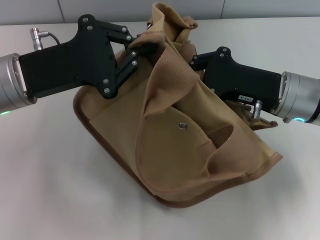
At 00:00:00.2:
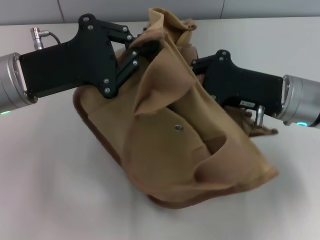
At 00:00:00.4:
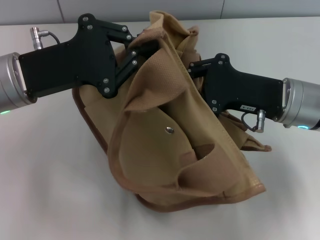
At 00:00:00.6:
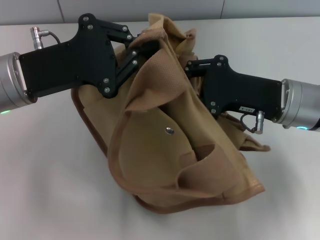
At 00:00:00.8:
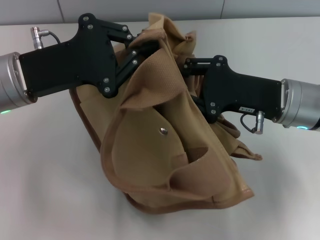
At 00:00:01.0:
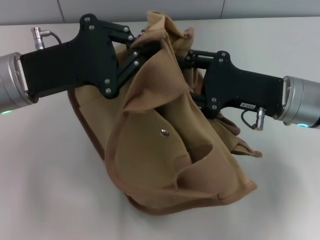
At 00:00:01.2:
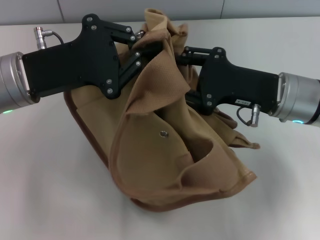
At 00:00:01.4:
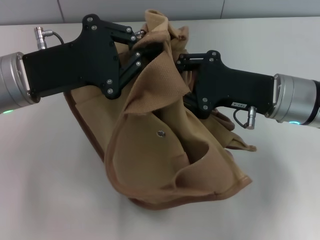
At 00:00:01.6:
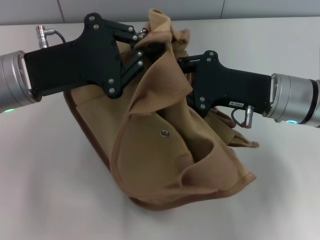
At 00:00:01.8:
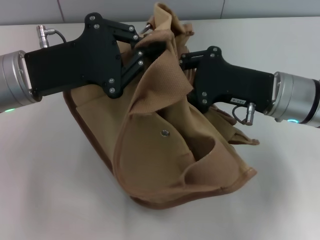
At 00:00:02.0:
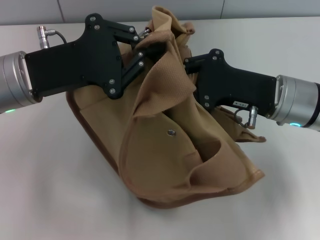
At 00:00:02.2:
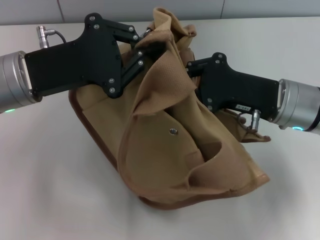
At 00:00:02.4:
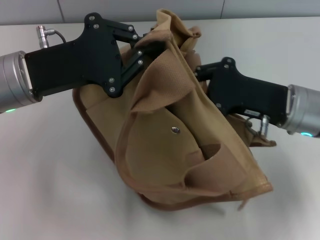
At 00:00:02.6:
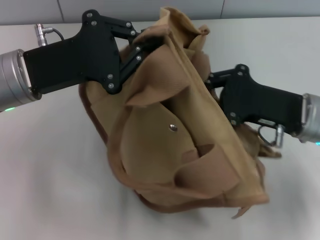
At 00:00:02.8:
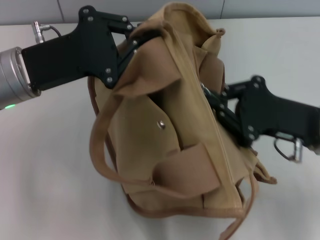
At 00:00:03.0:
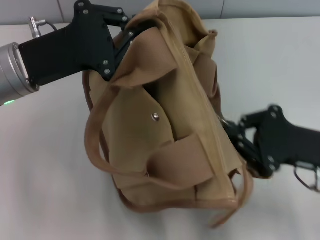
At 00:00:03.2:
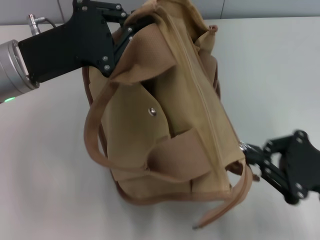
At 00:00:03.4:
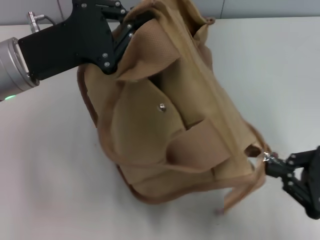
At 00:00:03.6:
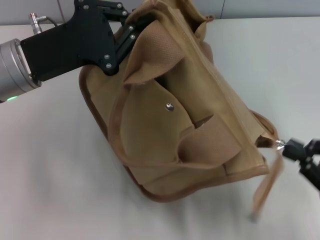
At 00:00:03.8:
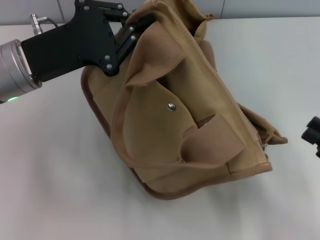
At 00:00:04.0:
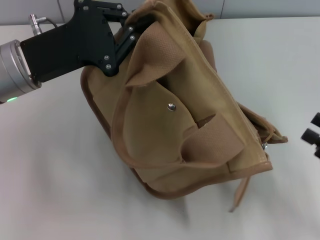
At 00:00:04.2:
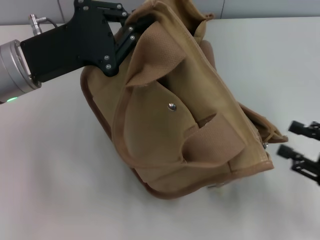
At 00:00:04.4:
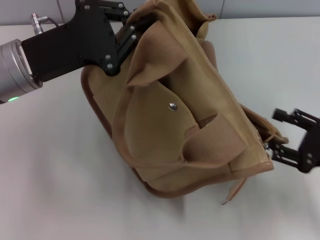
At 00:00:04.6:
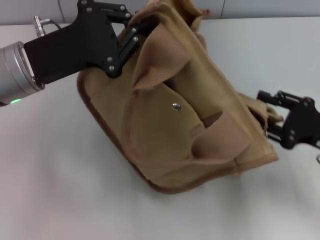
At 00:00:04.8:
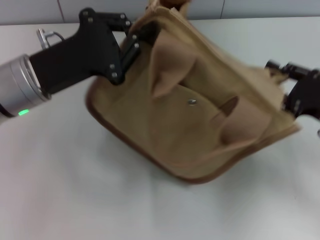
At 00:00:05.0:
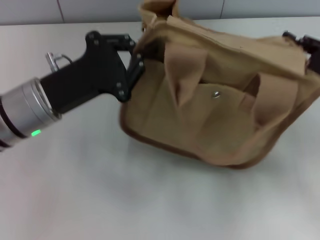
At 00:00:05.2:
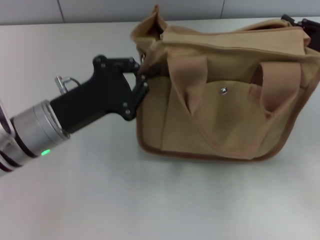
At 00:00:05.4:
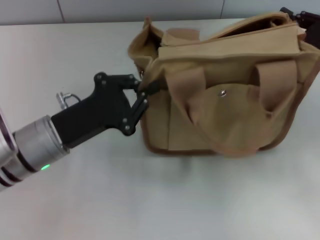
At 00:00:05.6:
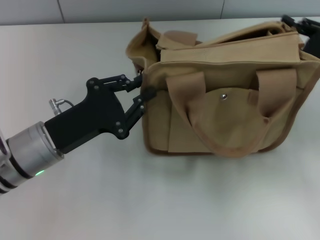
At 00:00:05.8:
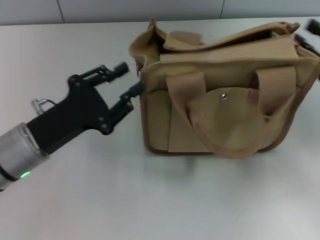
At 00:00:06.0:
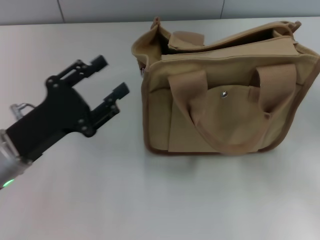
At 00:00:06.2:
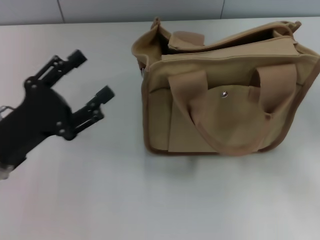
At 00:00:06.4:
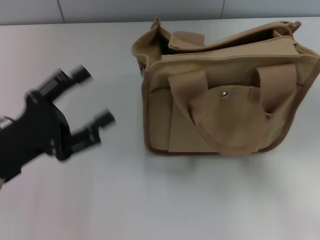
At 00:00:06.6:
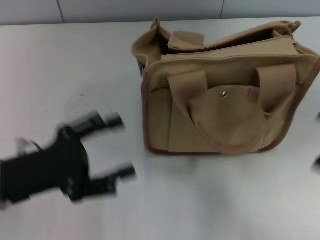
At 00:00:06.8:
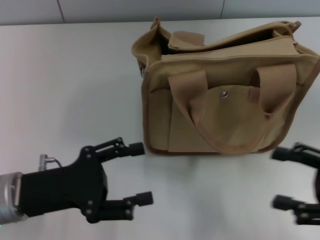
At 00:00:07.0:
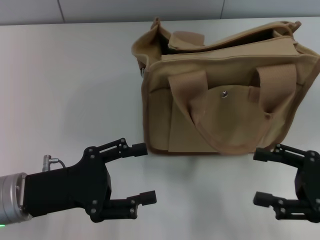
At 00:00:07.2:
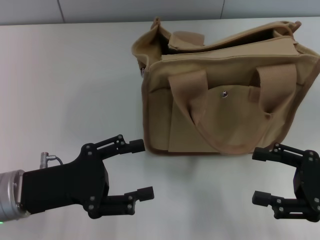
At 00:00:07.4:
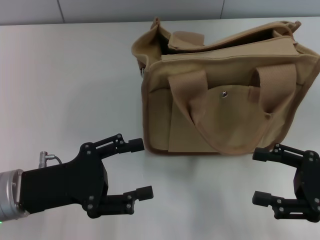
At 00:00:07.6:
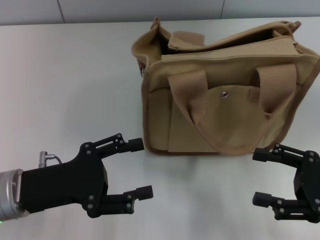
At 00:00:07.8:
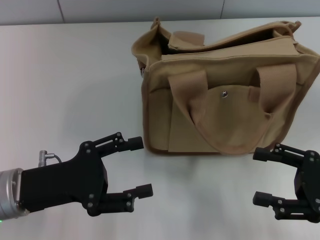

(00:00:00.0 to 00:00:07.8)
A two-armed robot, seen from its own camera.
Step, 00:00:00.0 - 00:00:03.6: Pull open the zipper with your right hand.
Step, 00:00:03.8 - 00:00:05.6: Grab the bag with your left hand.
00:00:01.6 - 00:00:03.2: The right gripper goes roughly 15 cm backward and to the right.
00:00:03.2 - 00:00:04.6: The right gripper opens up.
00:00:04.6 - 00:00:06.2: The left gripper heads backward and downward, covering approximately 10 cm, and opens up; the right gripper is displaced to the right by roughly 5 cm, moves some 5 cm forward and comes back, and closes, then reopens.
00:00:06.2 - 00:00:07.8: The right gripper heads to the left, covering about 5 cm.

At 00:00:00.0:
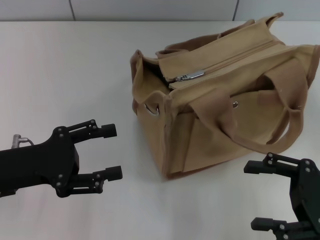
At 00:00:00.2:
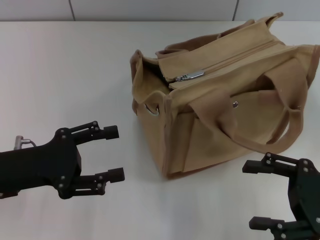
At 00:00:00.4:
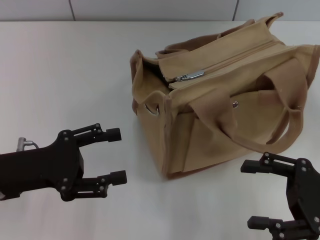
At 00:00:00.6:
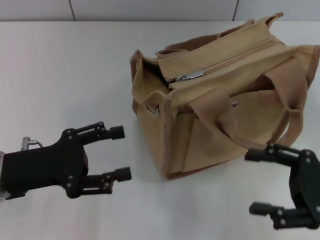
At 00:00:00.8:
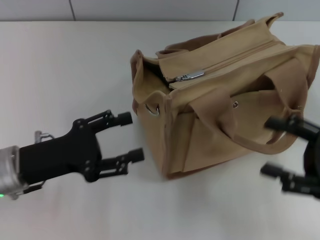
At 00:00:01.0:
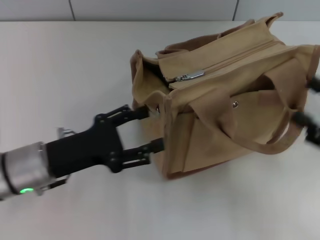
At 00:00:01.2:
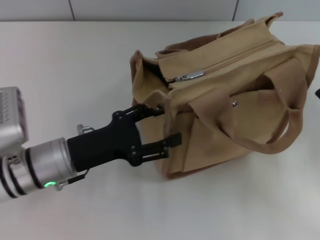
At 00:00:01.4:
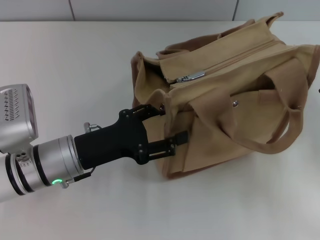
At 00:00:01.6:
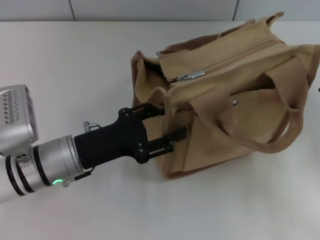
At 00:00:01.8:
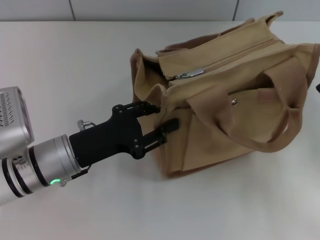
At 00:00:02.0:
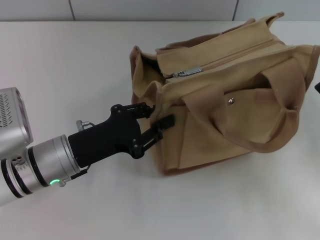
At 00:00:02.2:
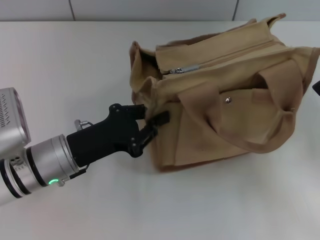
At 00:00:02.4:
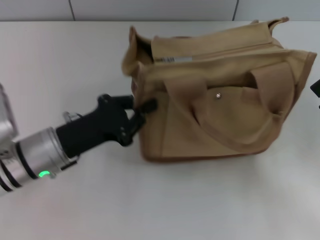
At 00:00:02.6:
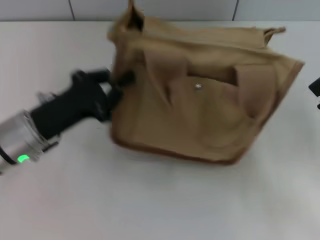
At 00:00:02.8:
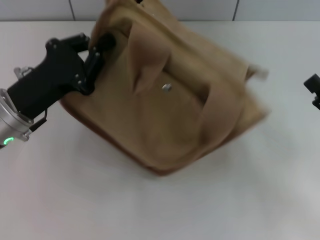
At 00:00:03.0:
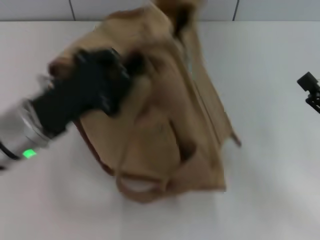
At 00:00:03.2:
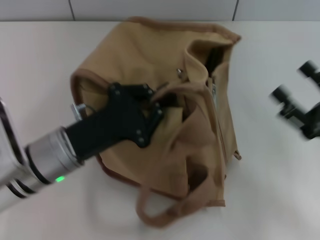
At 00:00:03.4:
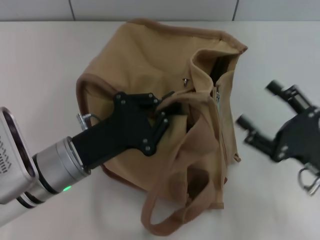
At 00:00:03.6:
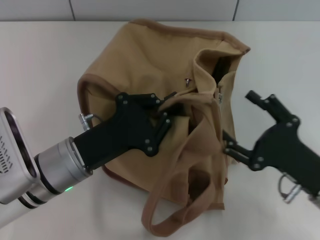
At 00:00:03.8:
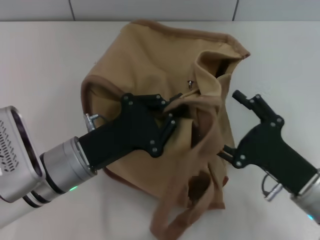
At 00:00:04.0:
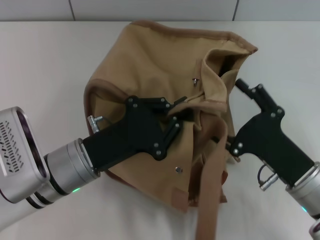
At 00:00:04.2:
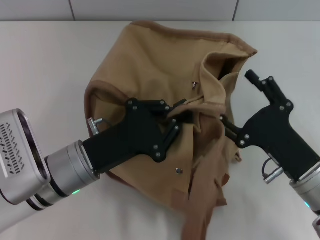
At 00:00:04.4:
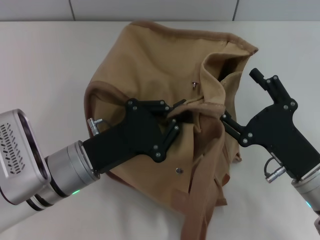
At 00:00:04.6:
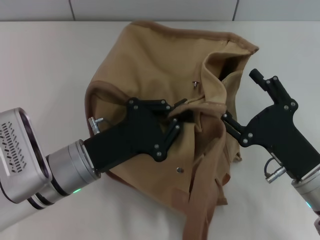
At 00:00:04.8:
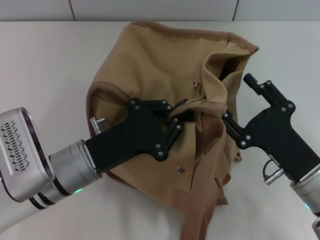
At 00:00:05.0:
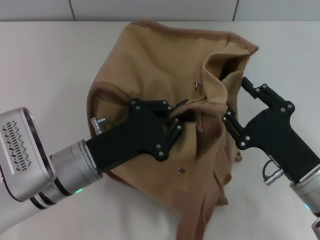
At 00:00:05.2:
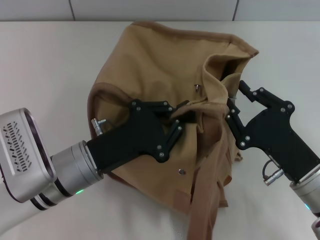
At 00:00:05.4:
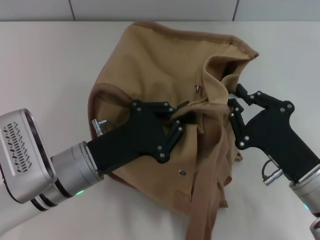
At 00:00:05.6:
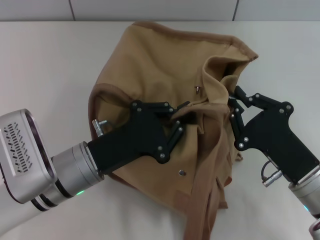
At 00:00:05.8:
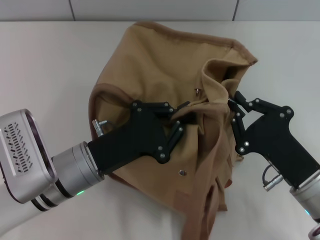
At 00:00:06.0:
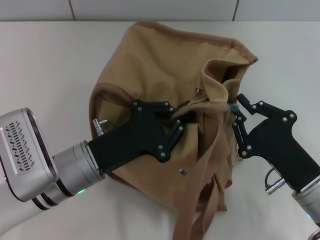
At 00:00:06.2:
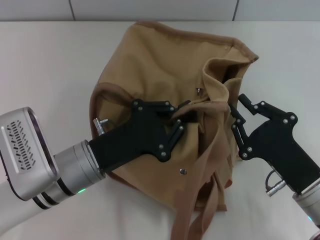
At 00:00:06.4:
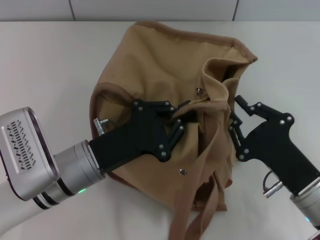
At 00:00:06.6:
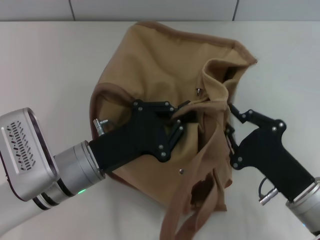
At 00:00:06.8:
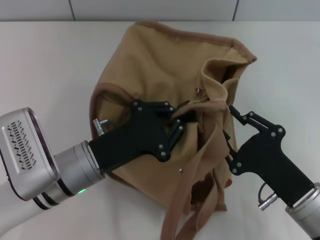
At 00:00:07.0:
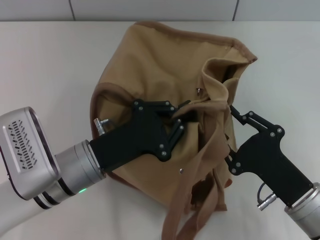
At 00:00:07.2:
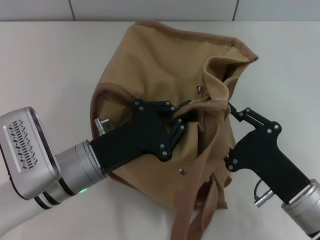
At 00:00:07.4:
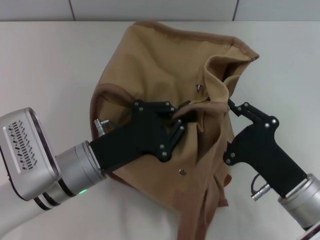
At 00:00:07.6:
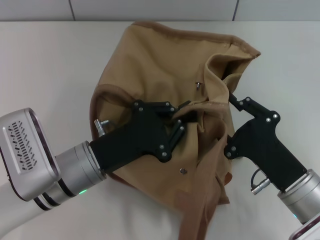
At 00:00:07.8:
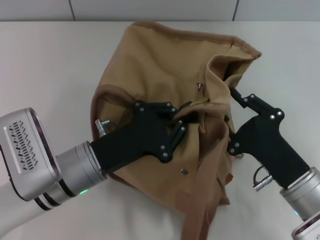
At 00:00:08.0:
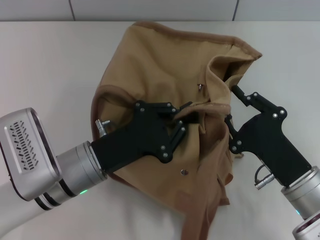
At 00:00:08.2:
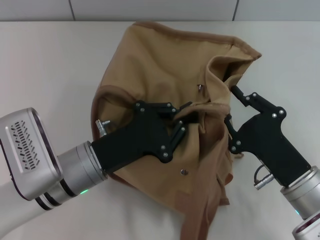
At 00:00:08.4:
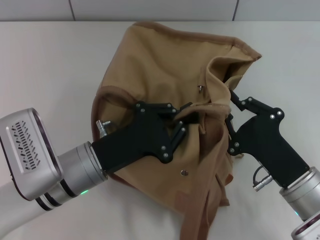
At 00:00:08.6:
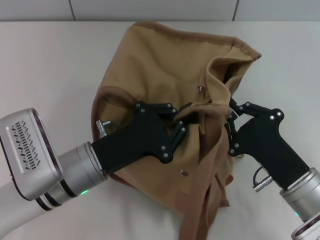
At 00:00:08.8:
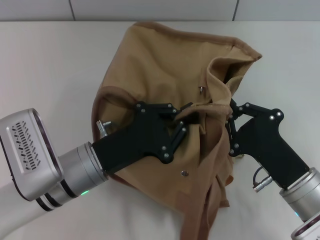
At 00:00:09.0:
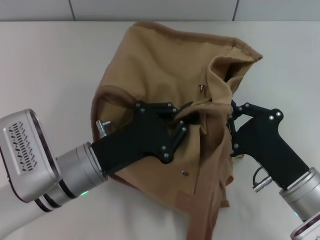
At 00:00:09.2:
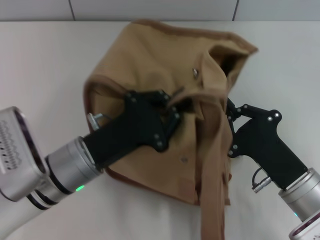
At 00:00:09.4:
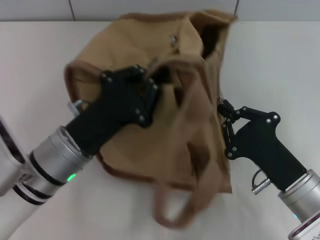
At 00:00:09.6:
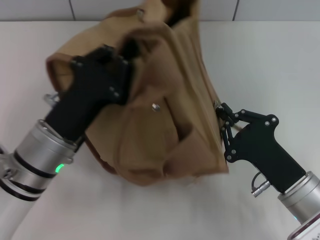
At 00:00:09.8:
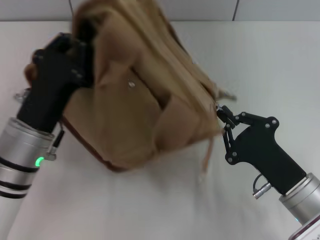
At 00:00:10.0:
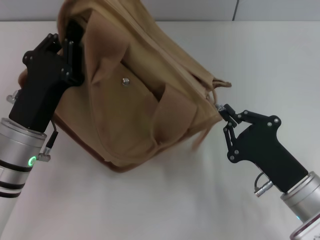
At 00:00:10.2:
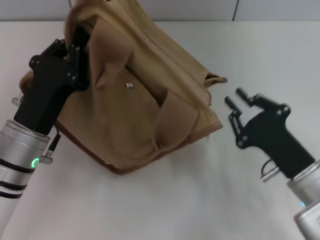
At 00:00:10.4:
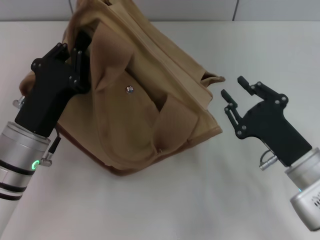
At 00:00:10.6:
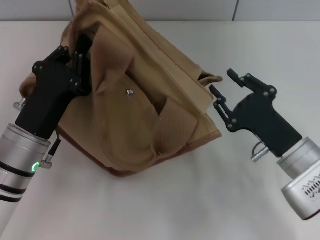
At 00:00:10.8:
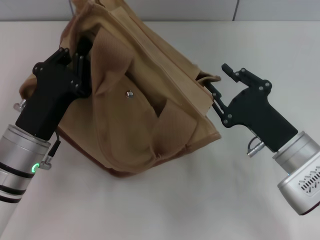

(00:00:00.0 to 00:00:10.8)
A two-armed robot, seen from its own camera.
Step, 00:00:00.0 - 00:00:10.4: Pull open the zipper with your right hand.
00:00:00.0 - 00:00:01.6: The left gripper goes about 10 cm to the right.
00:00:01.6 - 00:00:03.0: The left gripper changes place by some 5 cm, and closes up.
00:00:03.0 - 00:00:04.6: The left gripper is displaced to the right by approximately 5 cm; the right gripper moves to the left, approximately 10 cm.
00:00:04.6 - 00:00:06.2: The right gripper closes.
00:00:06.2 - 00:00:07.8: The grippers make only small movements.
00:00:07.8 - 00:00:09.2: The right gripper closes up.
00:00:09.2 - 00:00:10.8: The right gripper heads forward, covering about 5 cm, and opens up. Meanwhile the left gripper moves to the left, roughly 5 cm.

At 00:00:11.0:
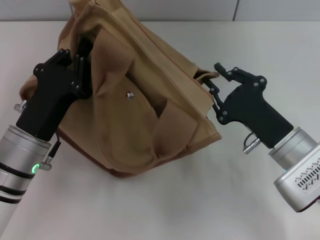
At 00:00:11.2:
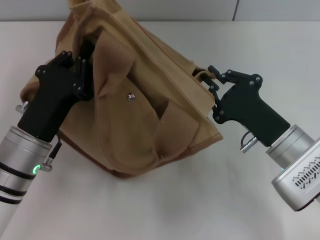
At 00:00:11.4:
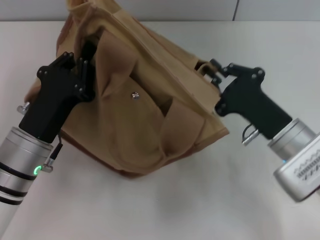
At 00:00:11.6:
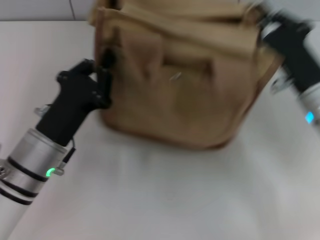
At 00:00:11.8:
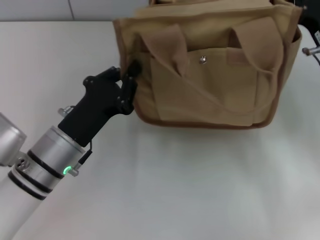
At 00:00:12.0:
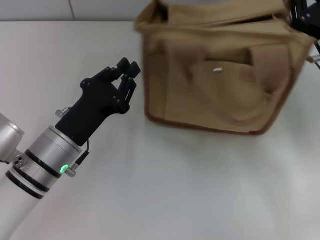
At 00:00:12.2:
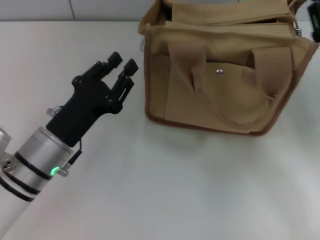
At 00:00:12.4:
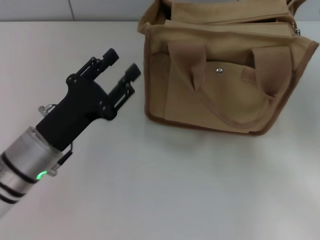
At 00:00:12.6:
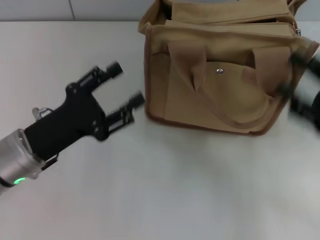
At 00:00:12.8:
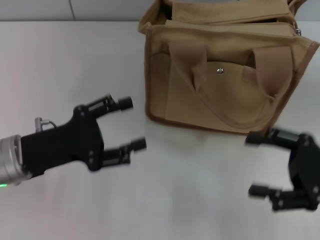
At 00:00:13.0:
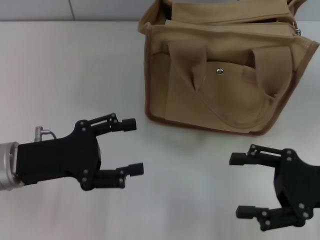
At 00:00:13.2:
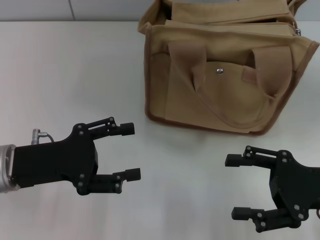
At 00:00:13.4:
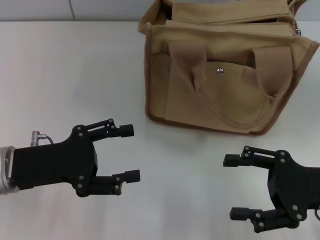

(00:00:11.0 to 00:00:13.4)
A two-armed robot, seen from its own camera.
Step, 00:00:11.0 - 00:00:12.2: Grab the bag with your left hand.
00:00:11.0 - 00:00:12.2: The right gripper is displaced to the right by some 10 cm.
00:00:12.2 - 00:00:13.4: The right gripper shifts roughly 5 cm backward, and opens up; the left gripper is displaced to the left by approximately 5 cm, and opens its fingers.
